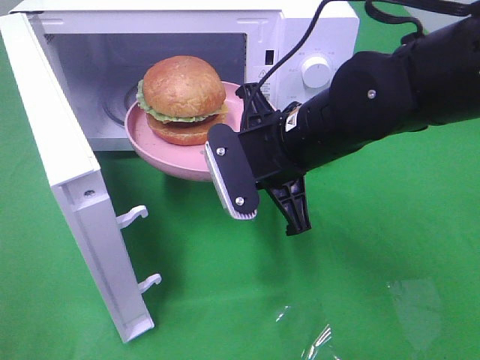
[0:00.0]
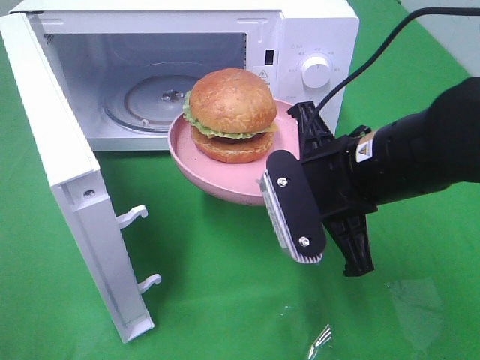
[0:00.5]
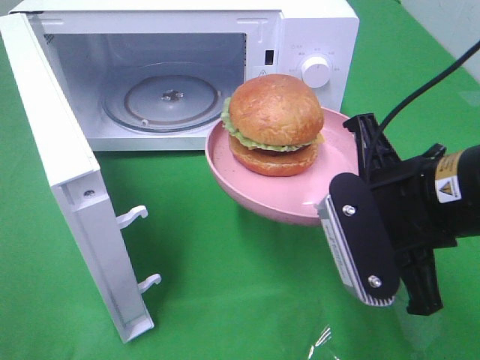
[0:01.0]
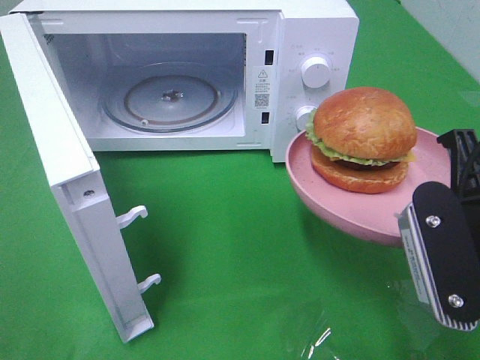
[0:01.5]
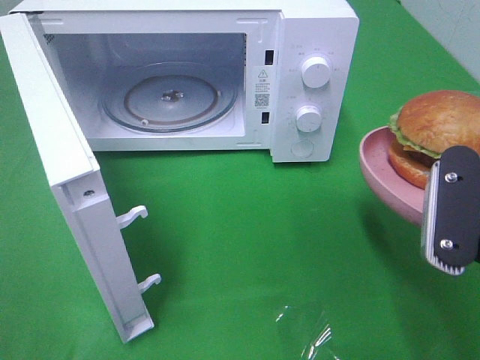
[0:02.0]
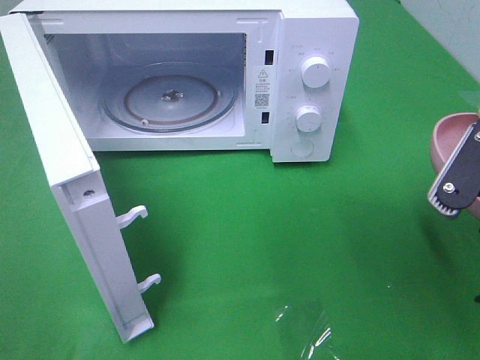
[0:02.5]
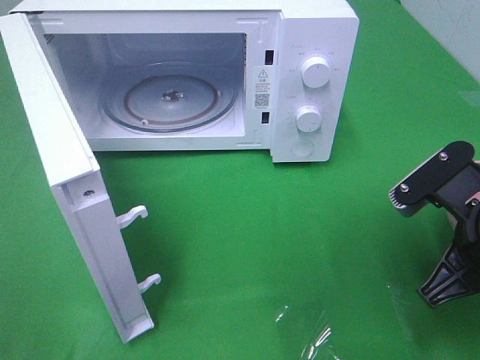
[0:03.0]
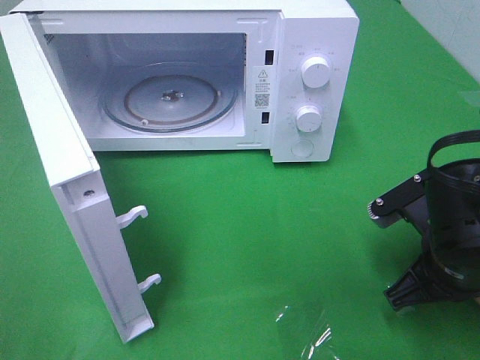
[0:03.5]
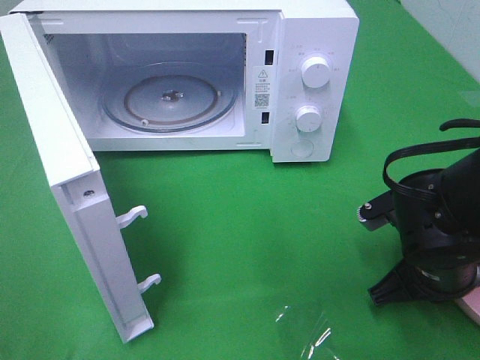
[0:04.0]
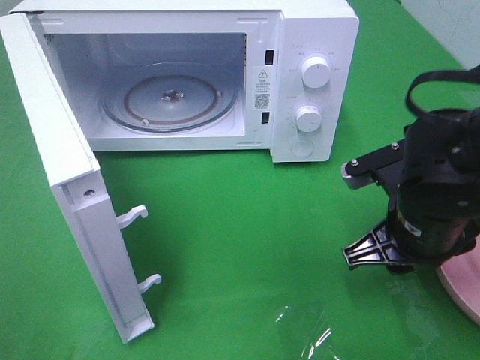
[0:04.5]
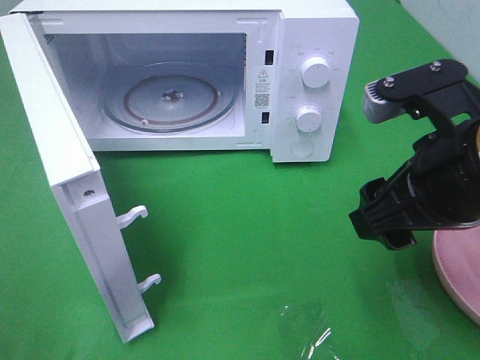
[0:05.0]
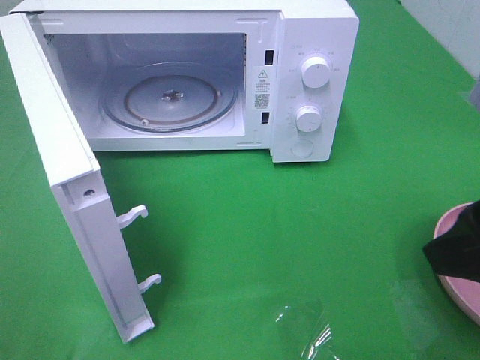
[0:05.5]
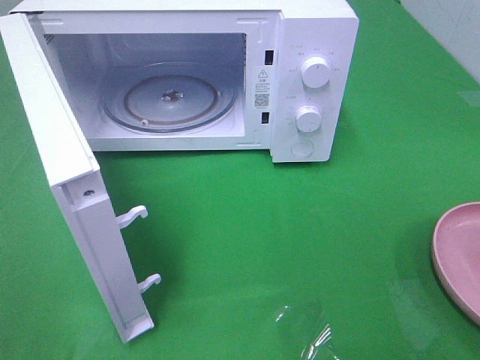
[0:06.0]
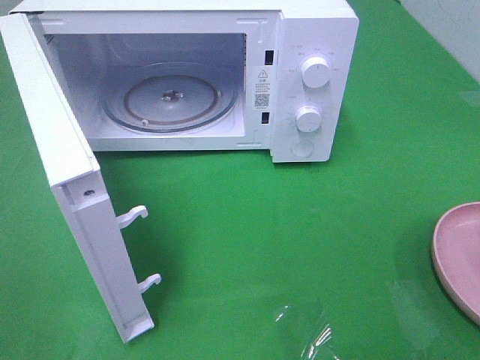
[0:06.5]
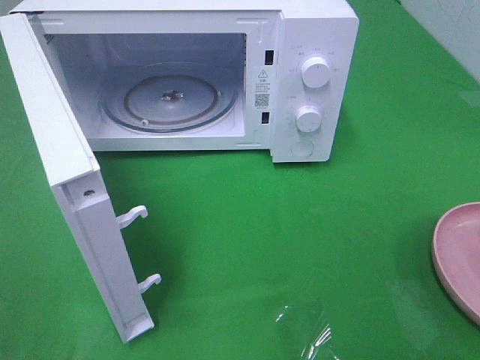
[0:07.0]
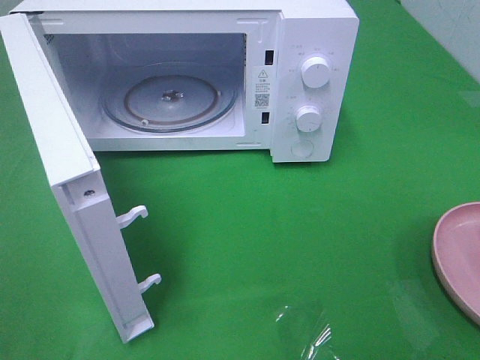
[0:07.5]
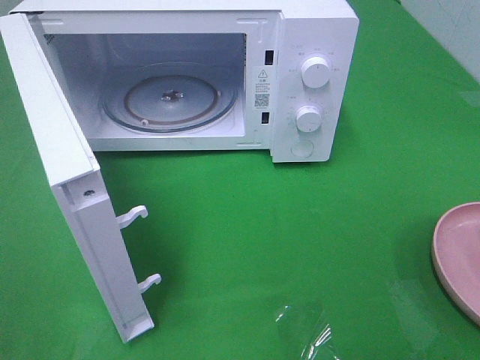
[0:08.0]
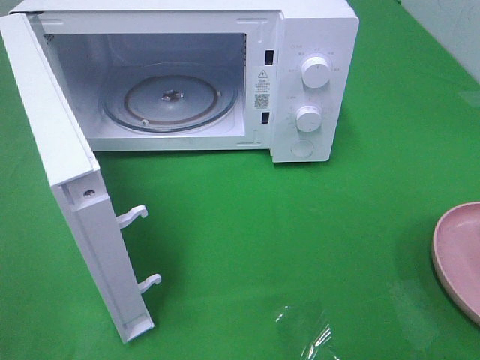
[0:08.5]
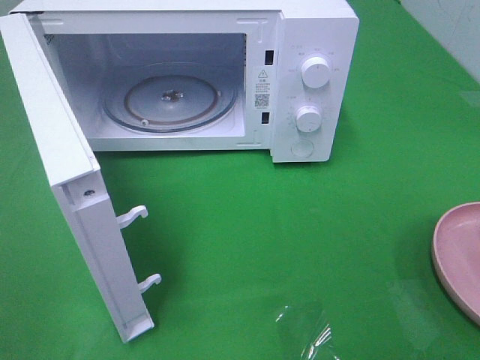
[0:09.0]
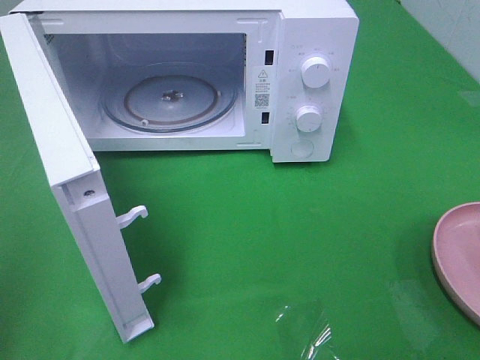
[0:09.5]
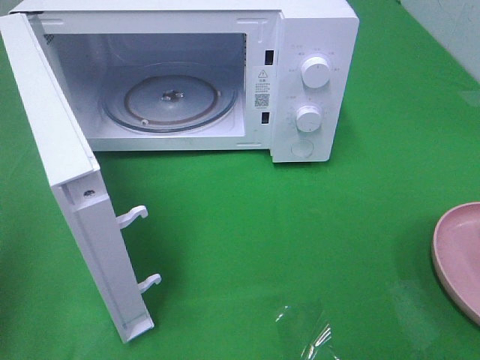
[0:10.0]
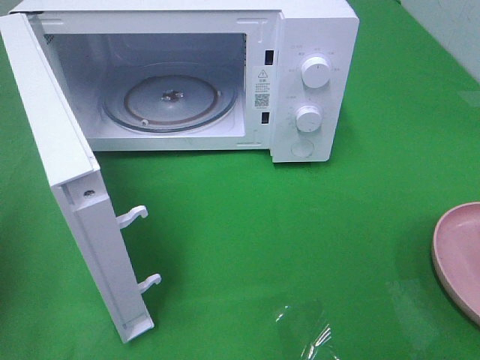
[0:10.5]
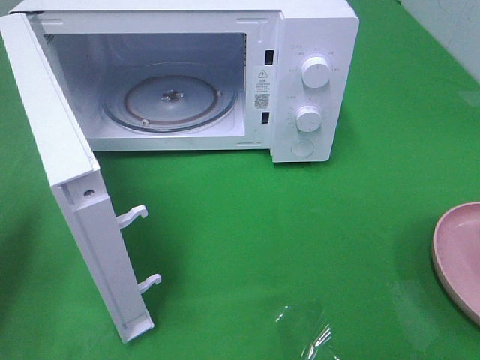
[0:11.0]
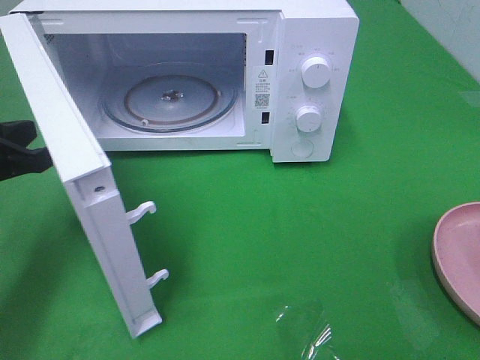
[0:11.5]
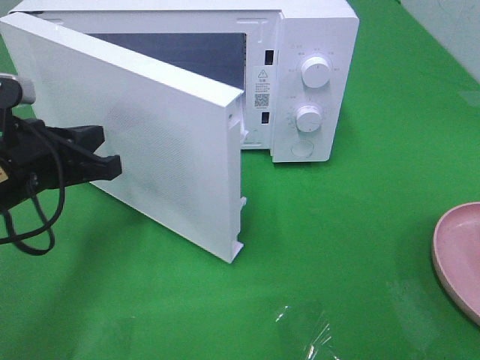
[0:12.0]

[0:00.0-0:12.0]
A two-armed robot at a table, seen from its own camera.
Task of the whole recording: Heat the burger.
Step, 0:00.0 to 0:05.0: Right hand: place the plate on the table.
0:00.0 to 0:02.0: The right gripper shifts some 20 cm to the right and backward.
0:02.0 to 0:04.0: The right gripper shifts about 15 cm downward and forward.
0:04.0 to 0:06.0: The right gripper heads upward and backward, covering about 25 cm, and opens up.
0:10.0 to 0:12.0: The left gripper shifts some 20 cm to the right, forward and downward.

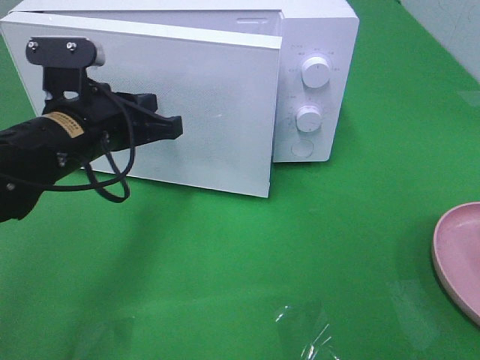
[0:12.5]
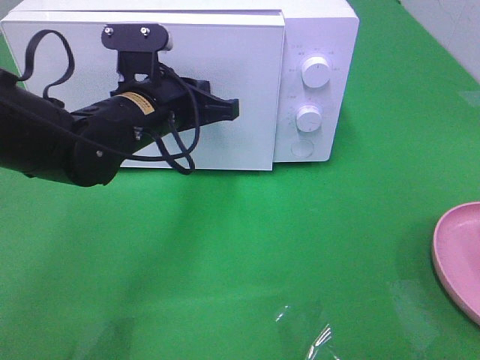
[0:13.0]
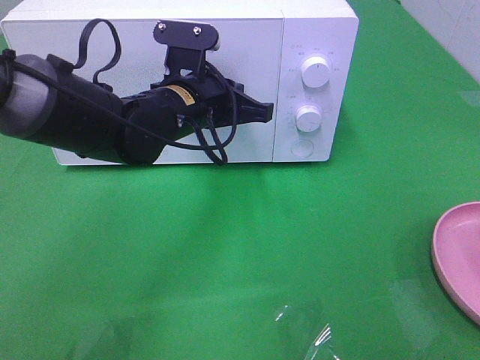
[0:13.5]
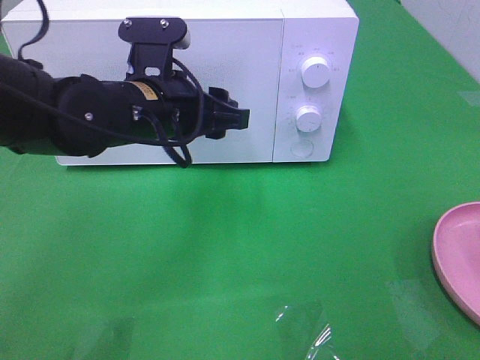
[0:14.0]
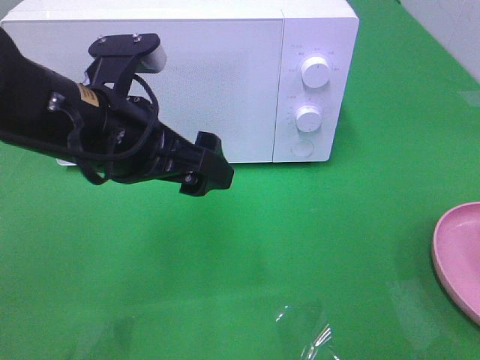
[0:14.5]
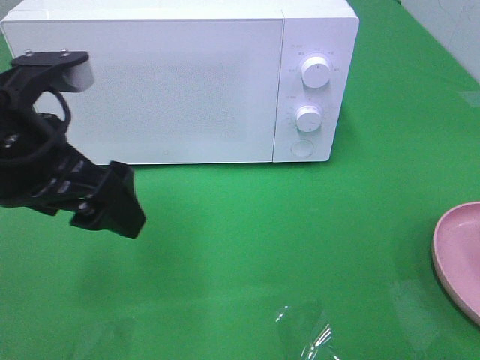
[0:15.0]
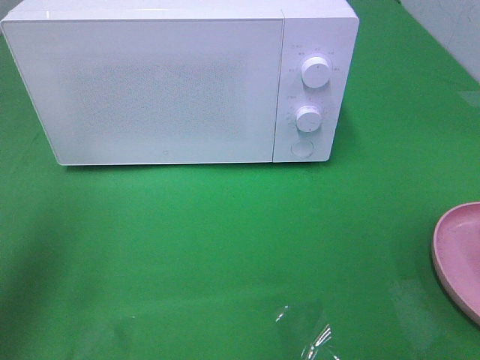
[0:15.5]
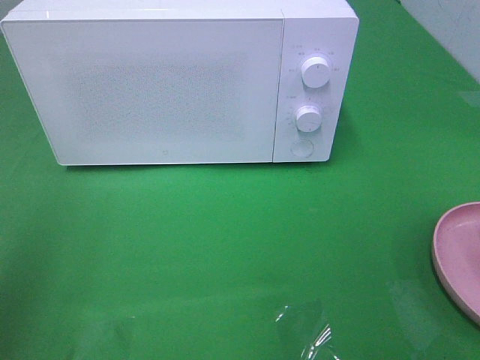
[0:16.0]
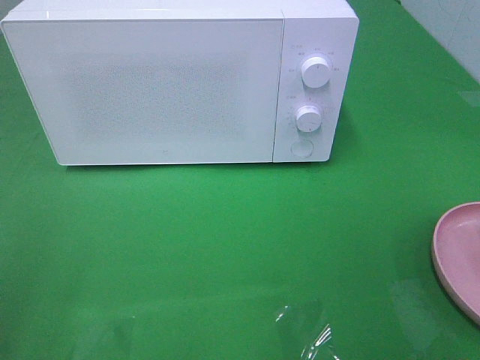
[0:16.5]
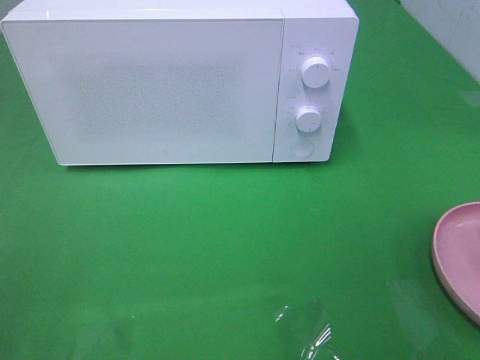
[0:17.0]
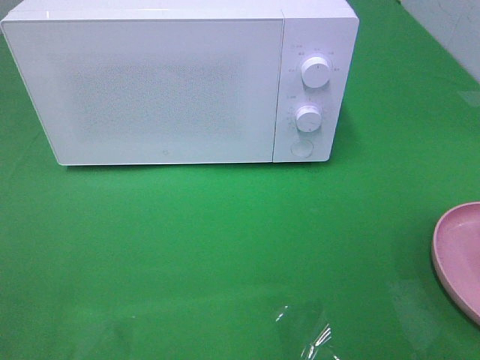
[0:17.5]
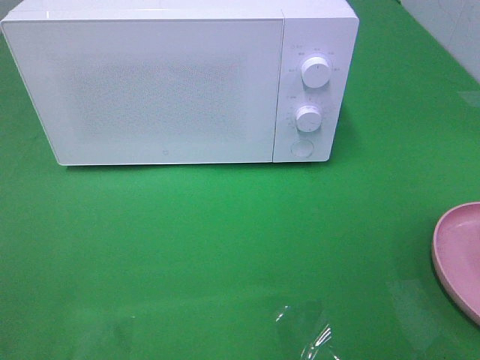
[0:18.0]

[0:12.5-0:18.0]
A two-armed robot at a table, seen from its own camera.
Task of the whole recording: Heat the burger.
0:12.5 to 0:14.5: The left gripper is displaced backward and upward by approximately 5 cm, and opens its fingers.
0:14.5 to 0:16.0: The left gripper goes some 25 cm to the left, upward and backward.

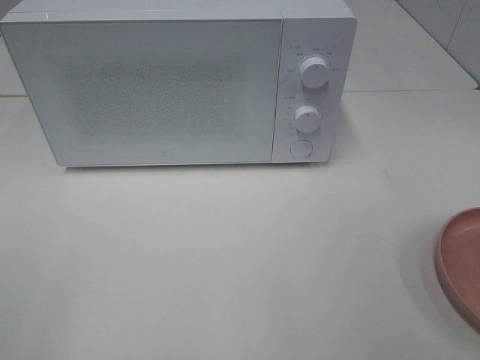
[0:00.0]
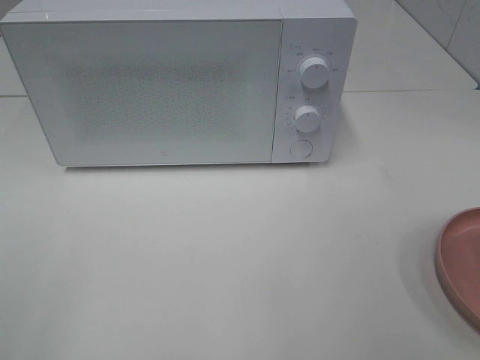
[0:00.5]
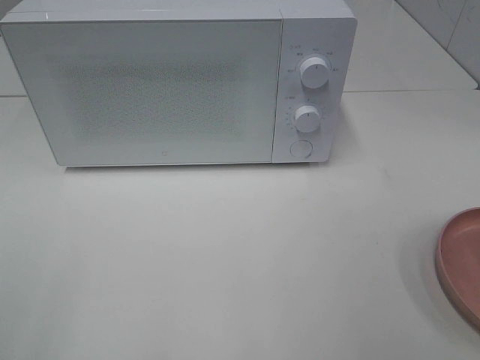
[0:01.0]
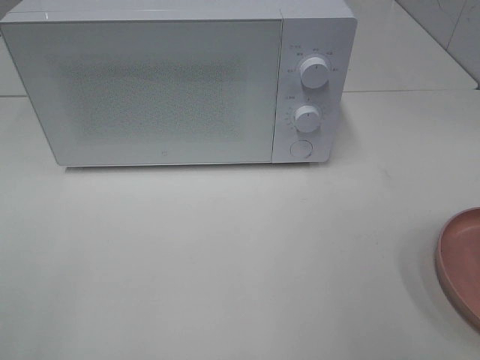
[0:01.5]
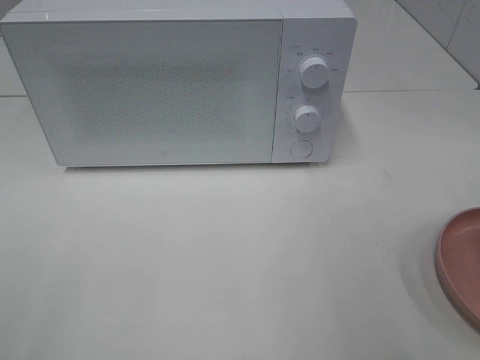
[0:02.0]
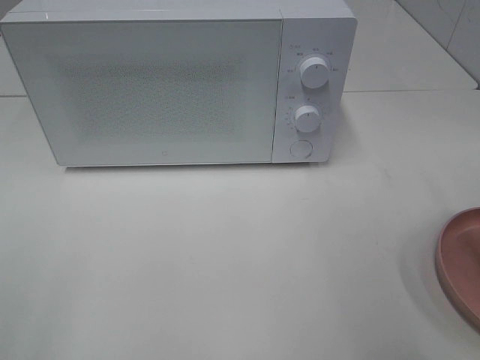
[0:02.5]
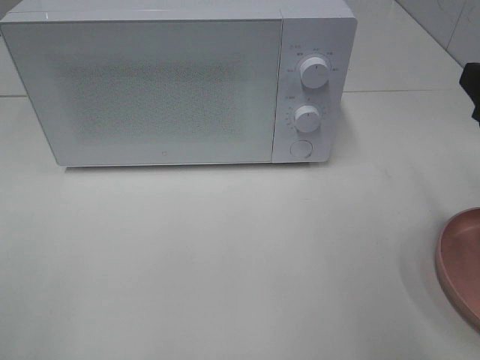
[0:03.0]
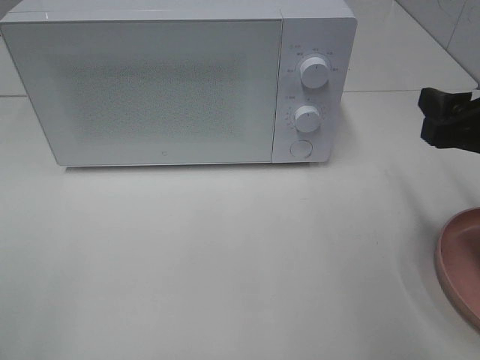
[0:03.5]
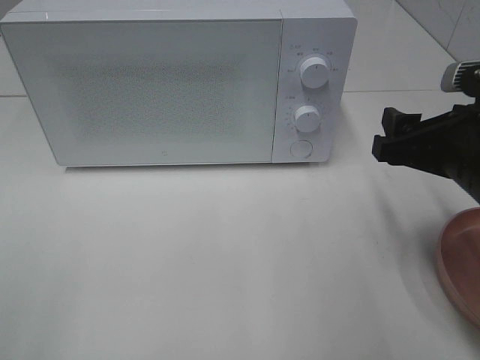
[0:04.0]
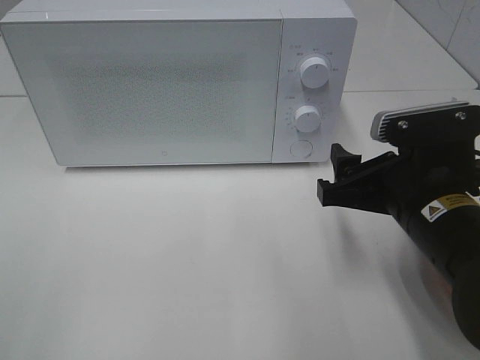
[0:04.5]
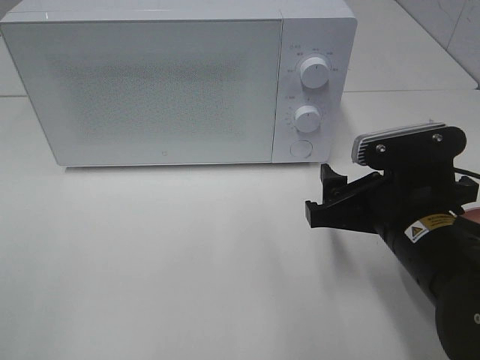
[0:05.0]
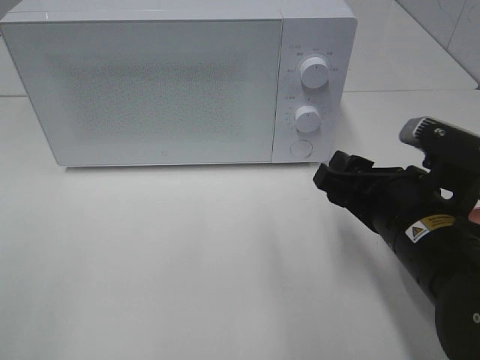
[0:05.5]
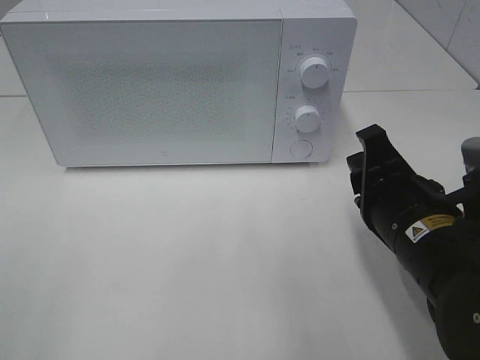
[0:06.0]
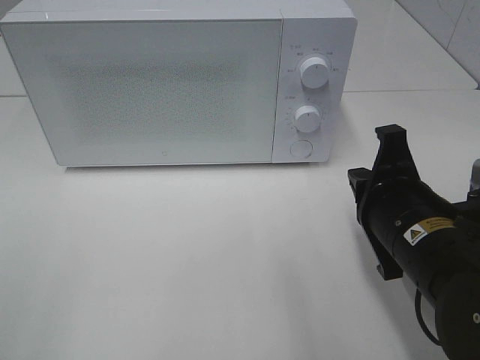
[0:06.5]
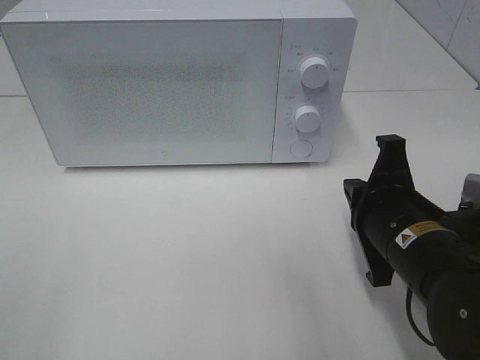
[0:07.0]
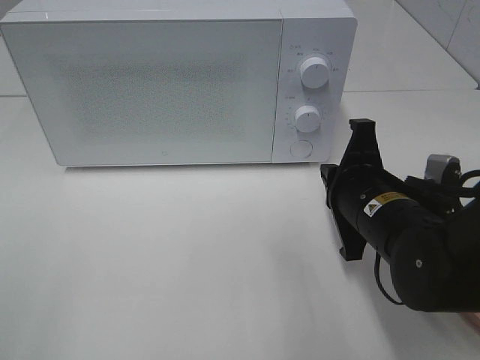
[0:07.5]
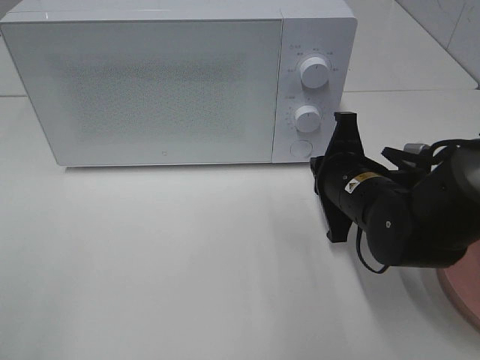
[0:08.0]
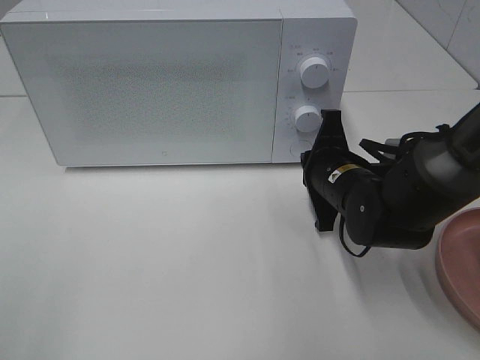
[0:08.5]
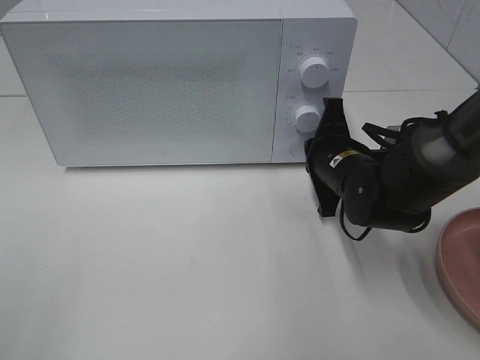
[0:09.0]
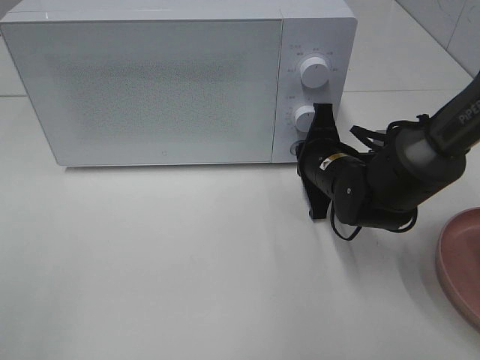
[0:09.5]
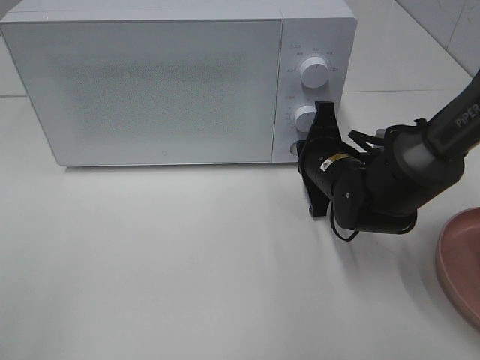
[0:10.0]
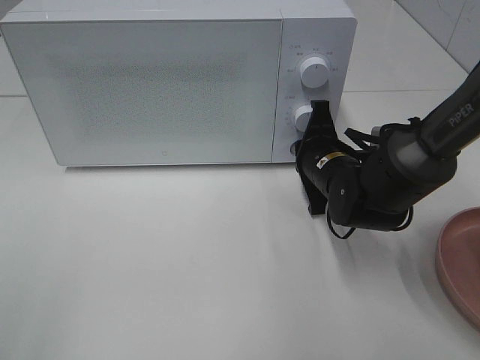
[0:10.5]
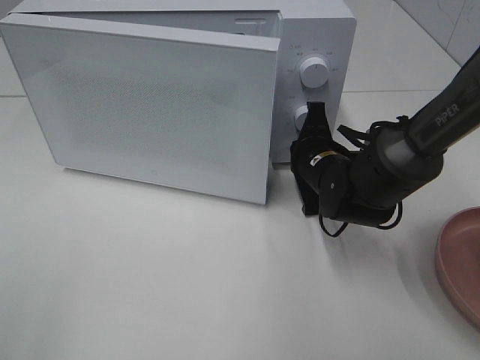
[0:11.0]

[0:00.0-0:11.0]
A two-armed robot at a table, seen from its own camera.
Task of the whole recording: Heat the burger.
0:02.0 to 0:03.5: The right gripper goes roughly 15 cm downward and forward.
0:03.5 to 0:05.5: The right gripper moves to the left and downward, roughly 10 cm.
0:05.5 to 0:07.5: The right gripper shifts by approximately 5 cm, and closes.
0:07.5 to 0:09.0: The right gripper goes roughly 10 cm forward.
0:09.0 to 0:11.0: The grippers move only a little.
